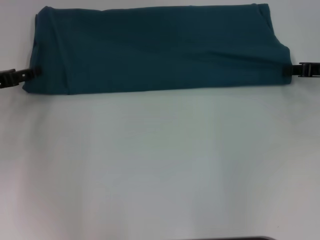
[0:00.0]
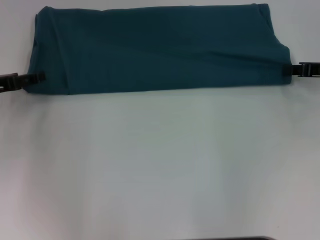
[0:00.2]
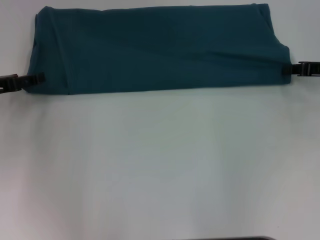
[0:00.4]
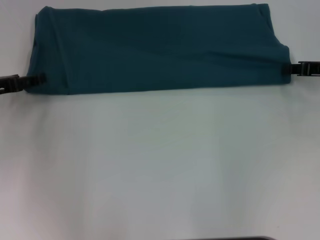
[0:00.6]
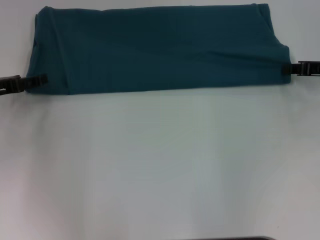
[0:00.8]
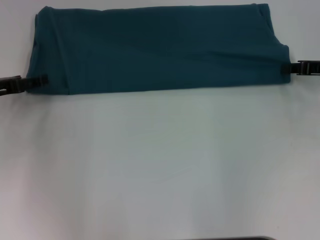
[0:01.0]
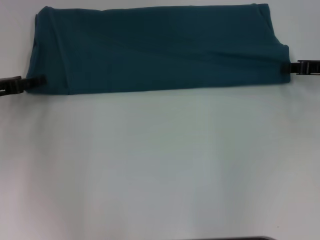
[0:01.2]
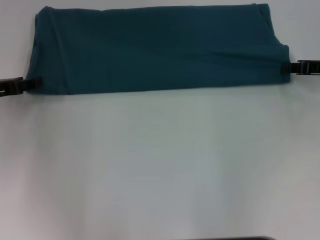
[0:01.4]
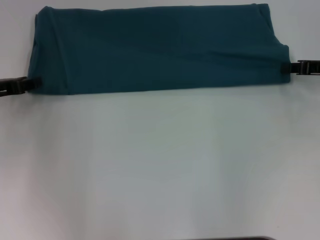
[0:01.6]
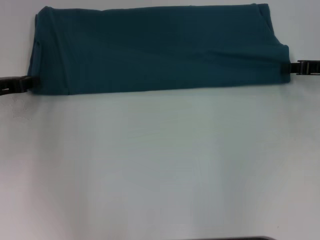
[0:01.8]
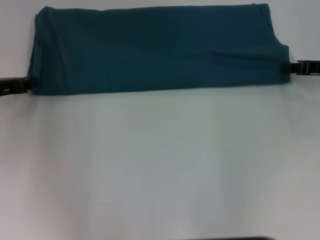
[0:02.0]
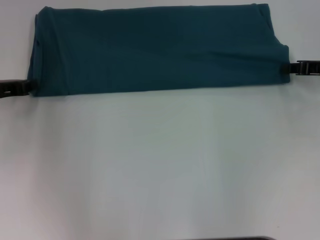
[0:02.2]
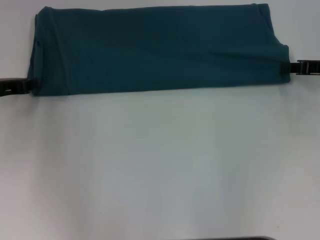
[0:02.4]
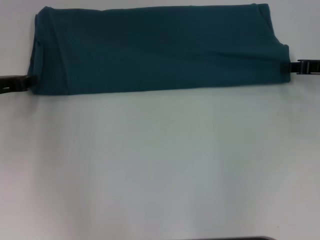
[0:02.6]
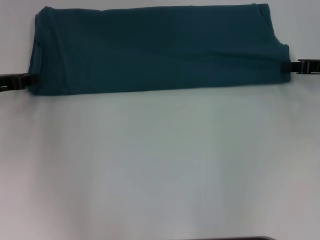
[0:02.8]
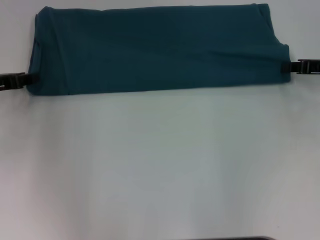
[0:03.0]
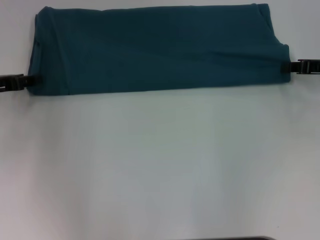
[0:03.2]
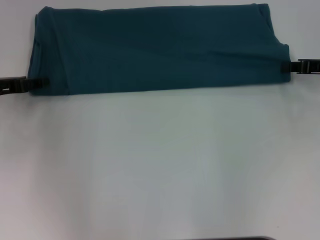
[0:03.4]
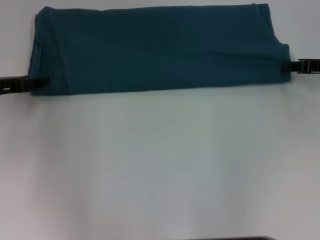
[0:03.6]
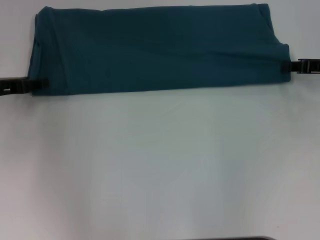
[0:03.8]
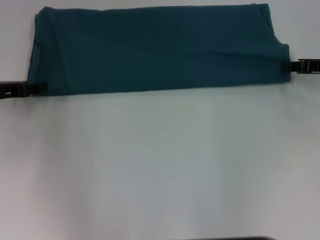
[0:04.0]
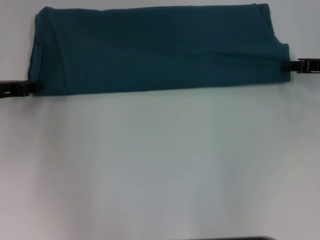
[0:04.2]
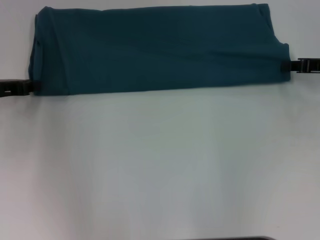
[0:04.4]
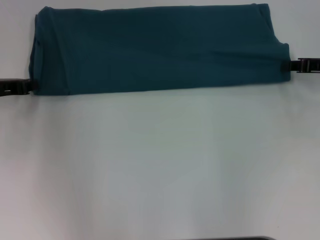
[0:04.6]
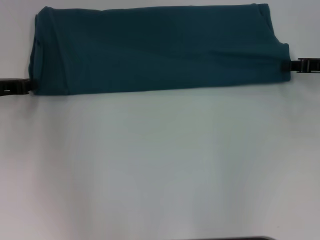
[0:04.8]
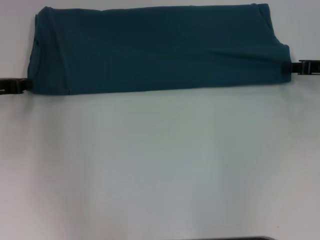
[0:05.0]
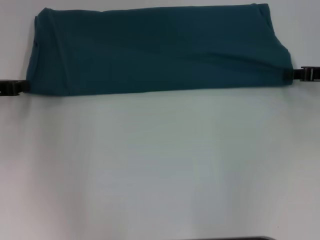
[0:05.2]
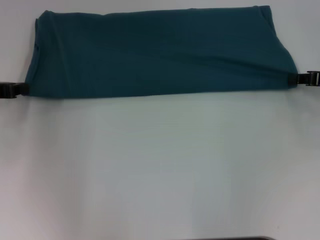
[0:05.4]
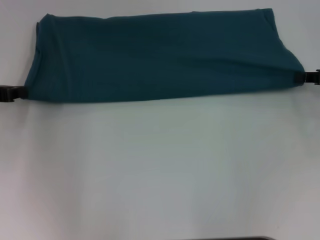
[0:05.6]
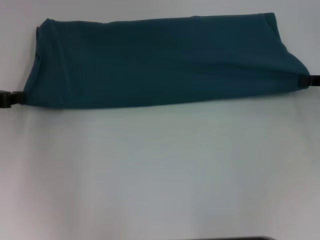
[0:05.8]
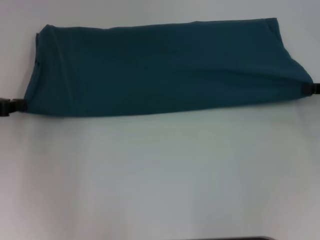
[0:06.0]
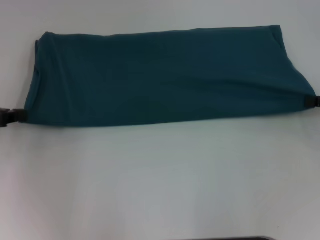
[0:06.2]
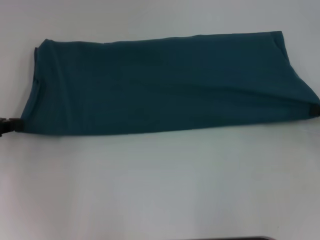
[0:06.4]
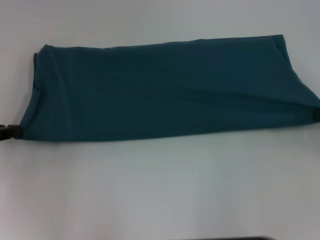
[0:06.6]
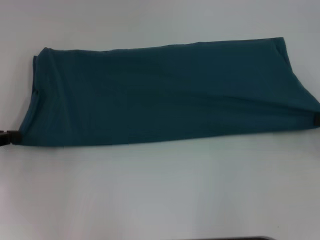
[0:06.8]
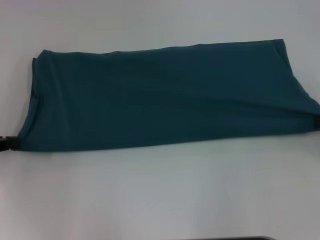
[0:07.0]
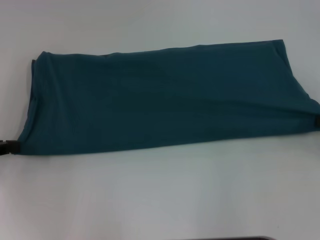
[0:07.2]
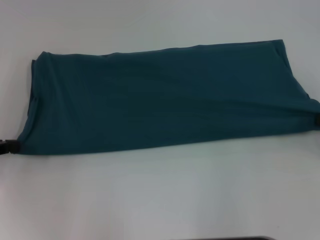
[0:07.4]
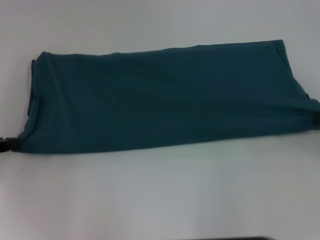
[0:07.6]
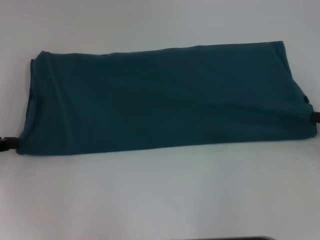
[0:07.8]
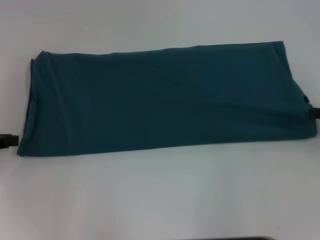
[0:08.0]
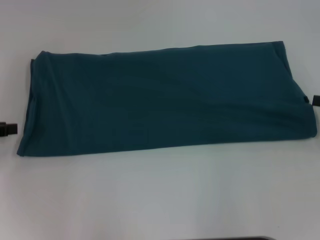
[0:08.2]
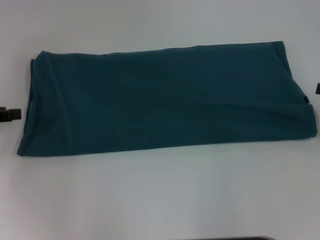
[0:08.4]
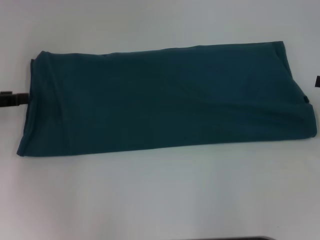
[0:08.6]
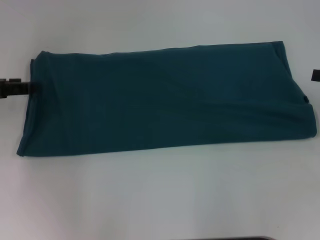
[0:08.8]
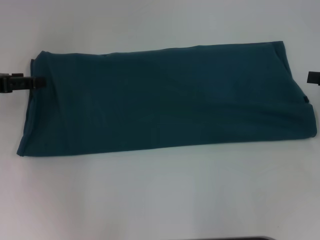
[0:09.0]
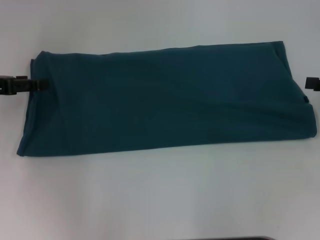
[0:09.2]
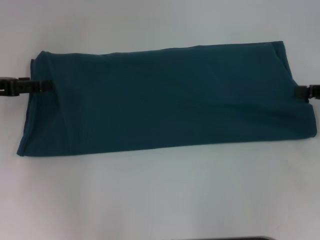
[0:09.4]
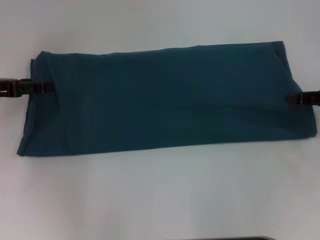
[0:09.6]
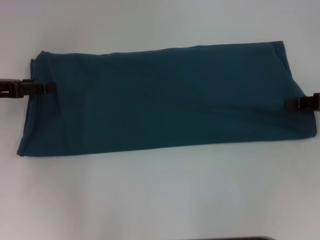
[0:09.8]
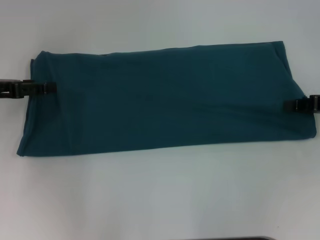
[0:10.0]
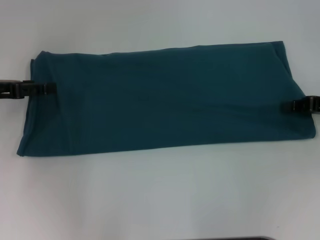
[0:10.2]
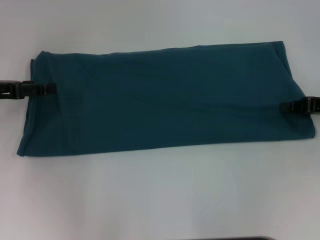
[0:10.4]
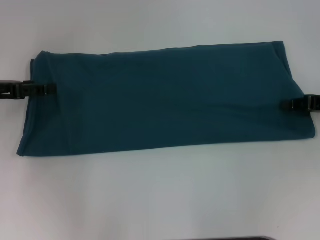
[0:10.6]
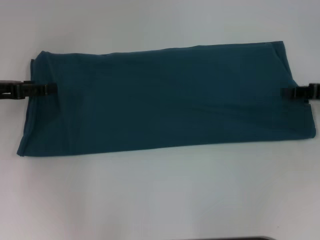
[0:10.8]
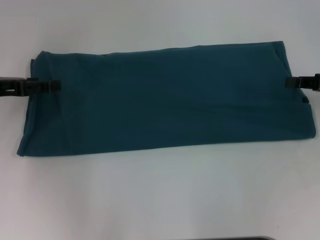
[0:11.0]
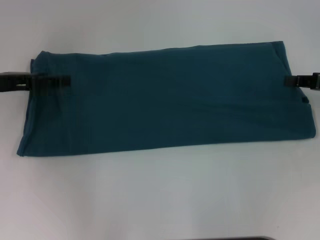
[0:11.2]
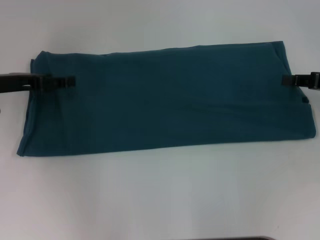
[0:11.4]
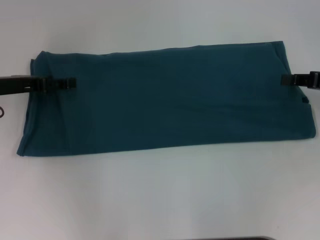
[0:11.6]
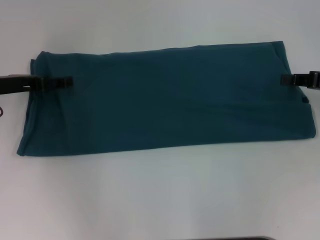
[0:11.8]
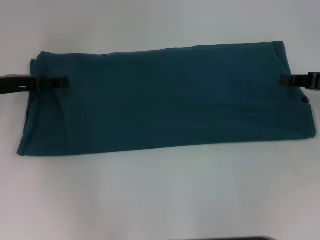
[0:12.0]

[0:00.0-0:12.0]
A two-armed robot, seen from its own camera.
Step, 0:00.0 to 0:08.2: Pull the clothes with your left hand.
Step, 0:00.0 to 0:08.2: Pull the clothes with your right hand.
0:00.0 to 0:01.6: The grippers stay close to where they were, moving slightly.
0:03.0 to 0:04.4: The left gripper opens, then closes once more.
0:04.4 to 0:06.0: The right gripper heads backward, covering approximately 5 cm.
0:06.0 to 0:07.6: The right gripper shifts approximately 5 cm backward.
0:07.6 to 0:09.0: The right gripper ends up some 5 cm from where it was, and opens up. The left gripper goes roughly 5 cm forward, and opens its fingers.
0:09.0 to 0:10.4: The right gripper moves downward, some 5 cm, and closes its fingers.
0:10.4 to 0:12.0: The grippers stay close to where they were, moving slightly.

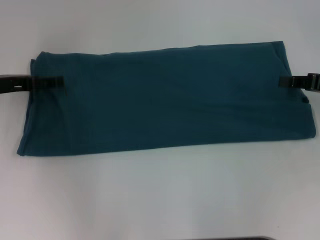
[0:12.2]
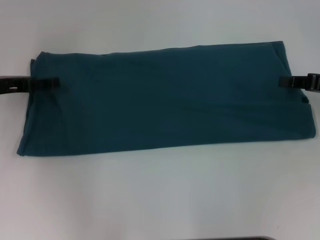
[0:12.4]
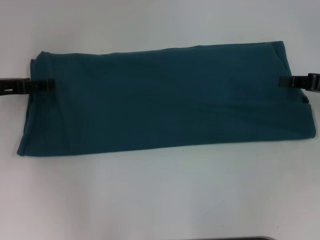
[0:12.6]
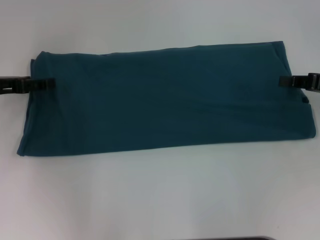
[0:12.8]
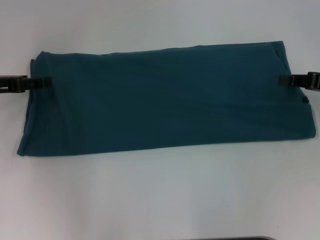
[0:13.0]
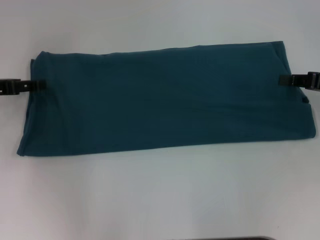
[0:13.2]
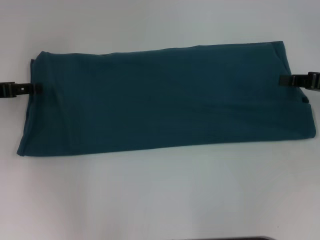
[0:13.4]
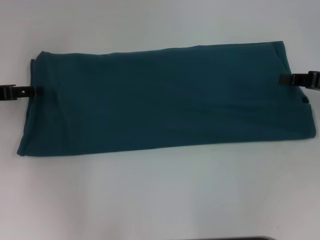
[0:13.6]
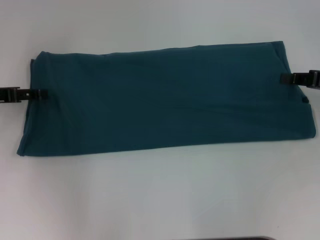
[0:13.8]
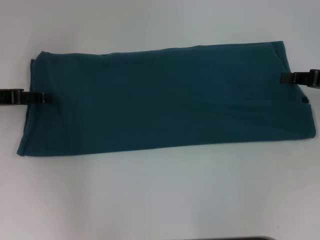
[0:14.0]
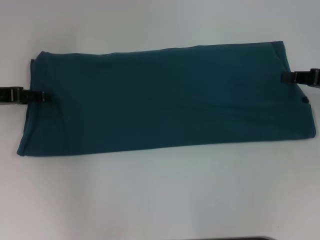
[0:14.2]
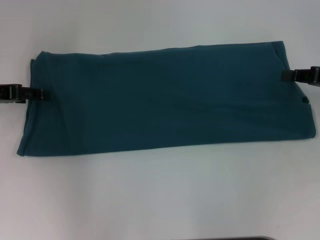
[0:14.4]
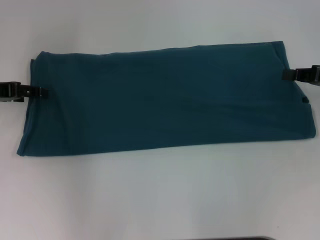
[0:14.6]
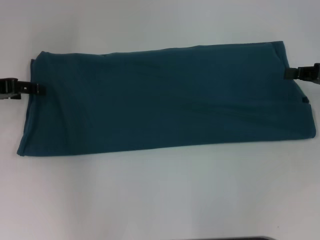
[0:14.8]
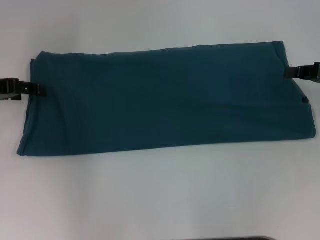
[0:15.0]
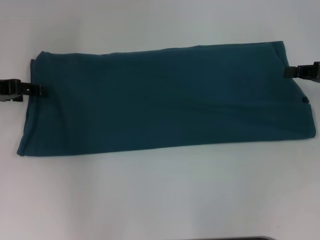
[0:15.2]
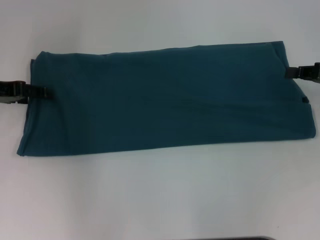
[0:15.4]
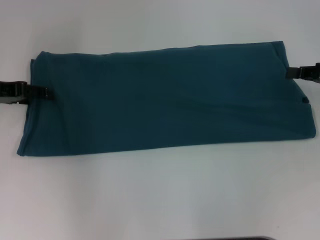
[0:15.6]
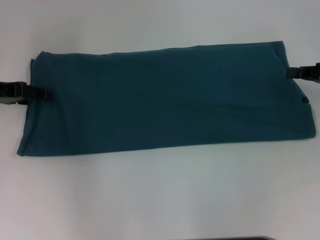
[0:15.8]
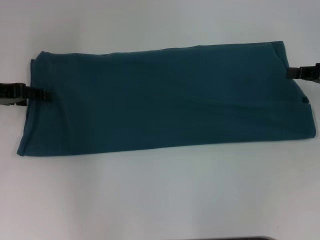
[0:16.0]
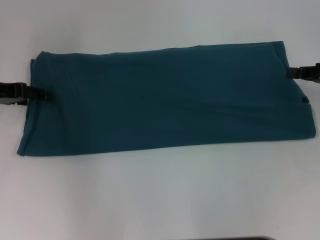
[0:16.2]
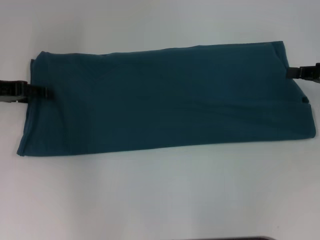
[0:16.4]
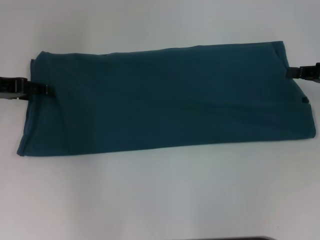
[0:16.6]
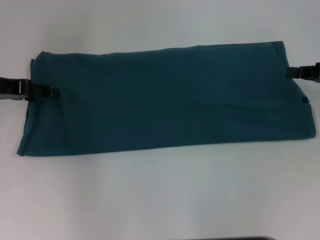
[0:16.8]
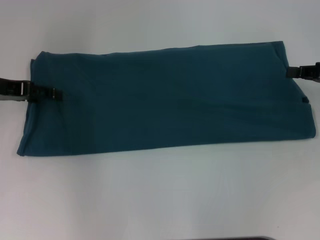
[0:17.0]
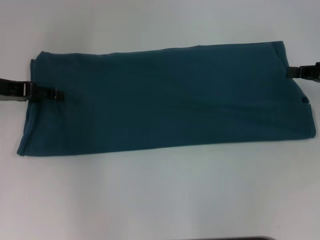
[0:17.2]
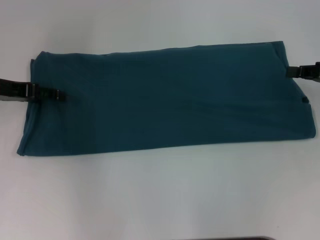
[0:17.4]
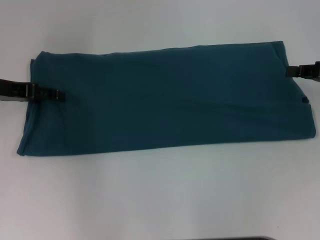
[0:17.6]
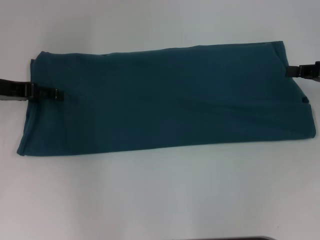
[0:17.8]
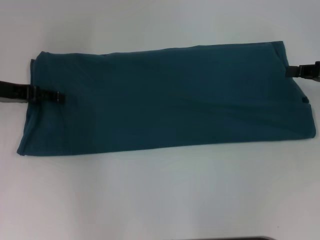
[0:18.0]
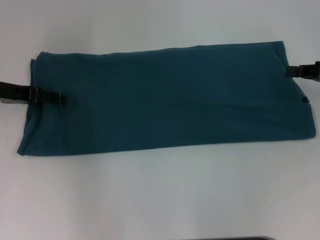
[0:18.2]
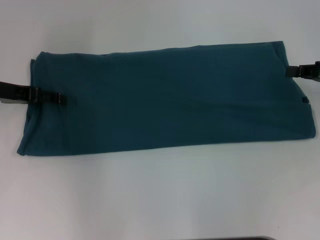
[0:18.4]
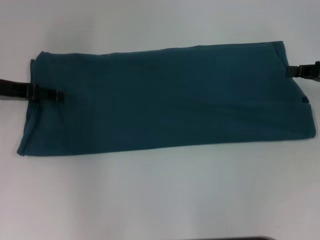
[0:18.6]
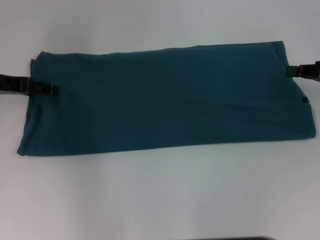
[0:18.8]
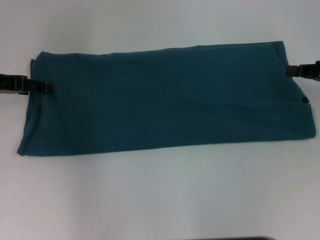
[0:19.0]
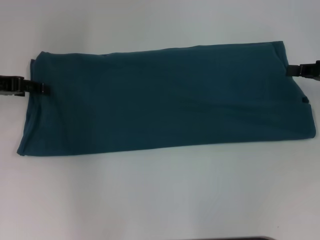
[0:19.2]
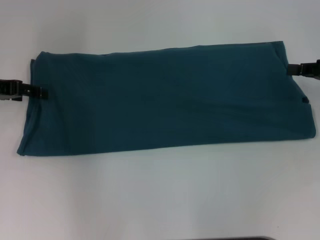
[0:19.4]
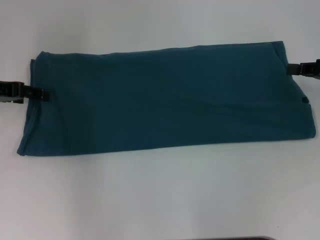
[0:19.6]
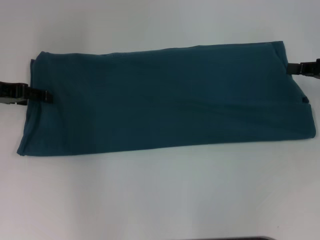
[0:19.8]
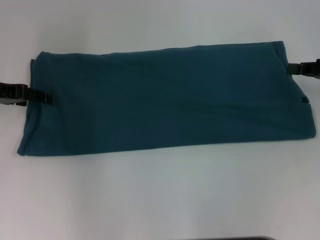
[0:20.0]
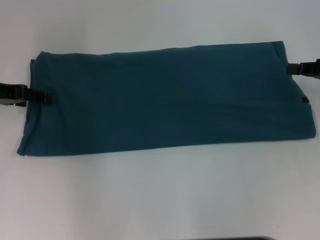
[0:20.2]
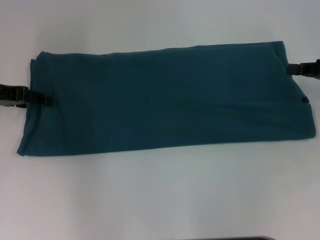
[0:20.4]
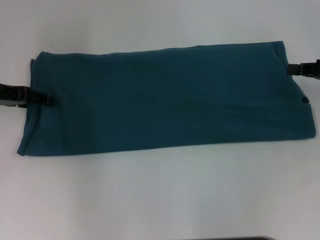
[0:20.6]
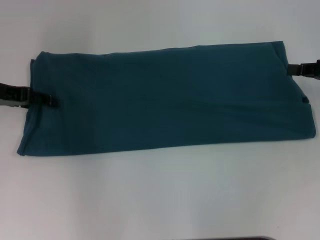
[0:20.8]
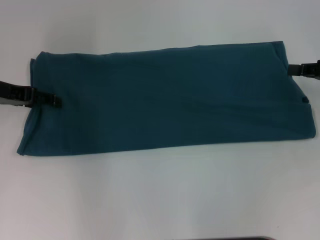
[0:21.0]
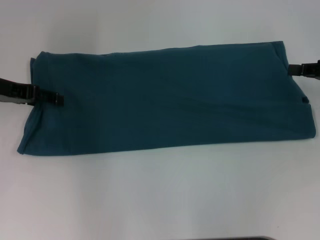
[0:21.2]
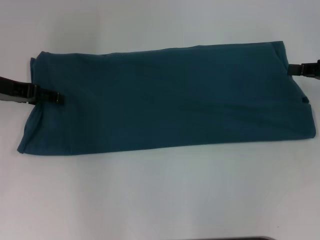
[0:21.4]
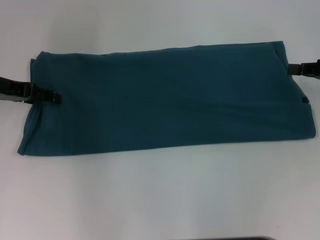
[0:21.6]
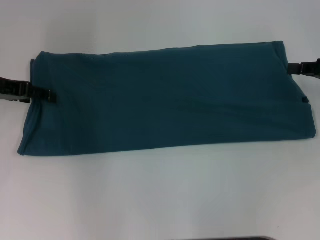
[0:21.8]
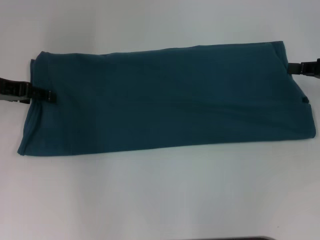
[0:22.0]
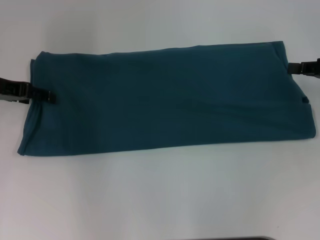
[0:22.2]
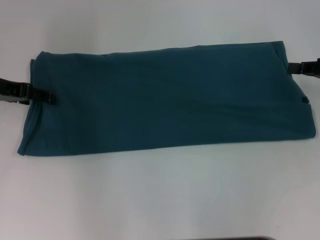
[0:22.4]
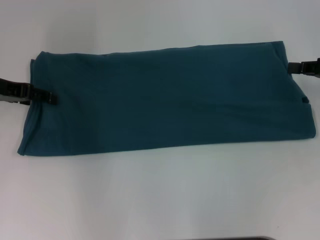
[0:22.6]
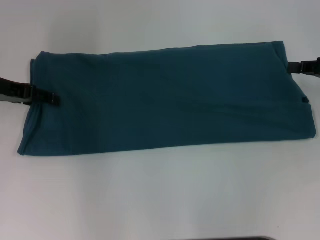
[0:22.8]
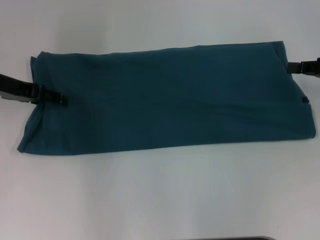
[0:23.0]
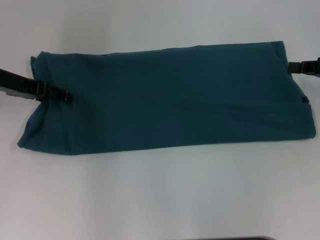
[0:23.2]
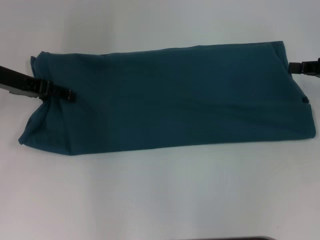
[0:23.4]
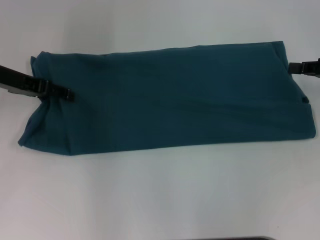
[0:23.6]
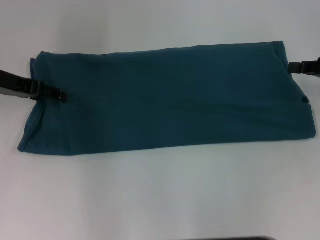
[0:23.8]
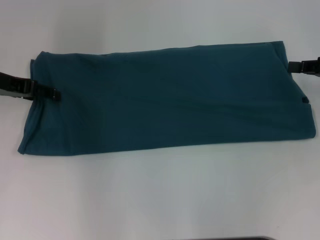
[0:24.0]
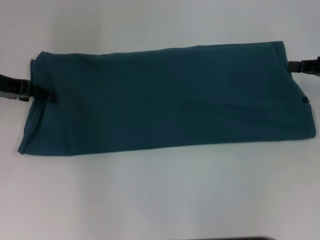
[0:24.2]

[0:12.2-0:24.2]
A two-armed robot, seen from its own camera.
0:12.2 to 0:15.2: There are only small adjustments of the grippers.
0:15.2 to 0:16.6: Neither gripper changes place.
0:16.6 to 0:18.2: There are only small adjustments of the grippers.
0:21.2 to 0:22.6: Both grippers stay about where they are.
0:22.6 to 0:24.2: There are only small adjustments of the grippers.
